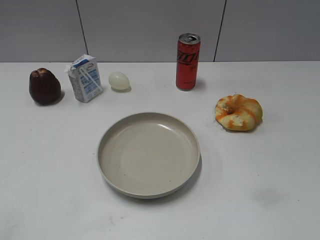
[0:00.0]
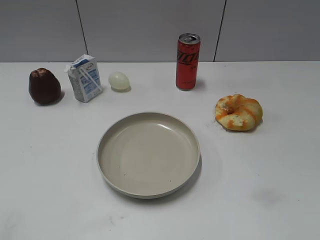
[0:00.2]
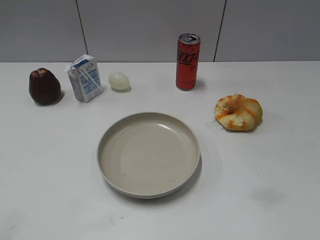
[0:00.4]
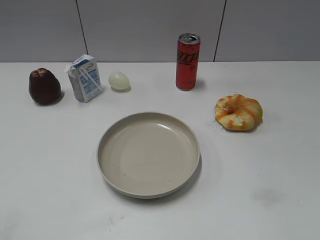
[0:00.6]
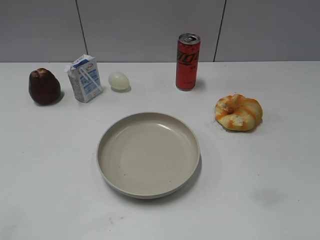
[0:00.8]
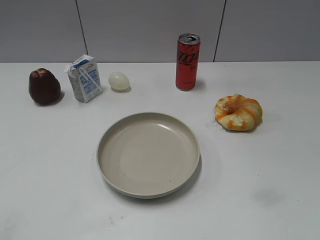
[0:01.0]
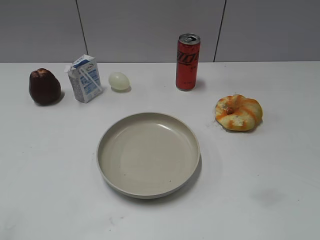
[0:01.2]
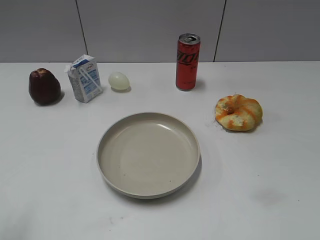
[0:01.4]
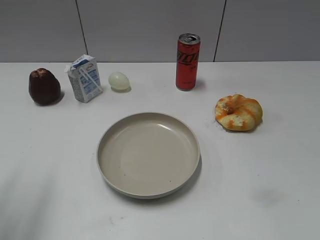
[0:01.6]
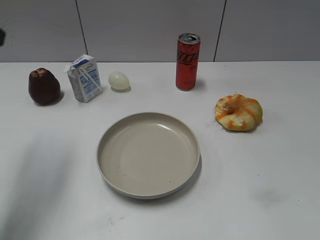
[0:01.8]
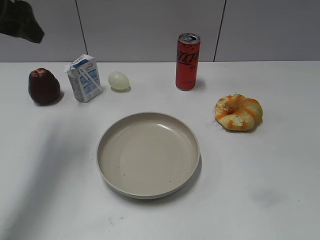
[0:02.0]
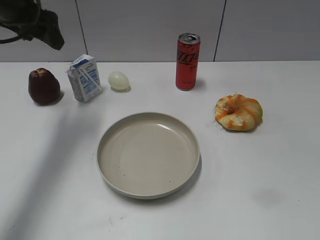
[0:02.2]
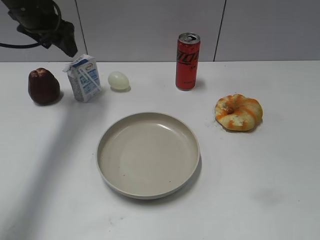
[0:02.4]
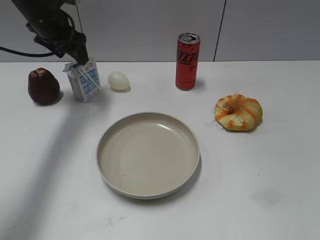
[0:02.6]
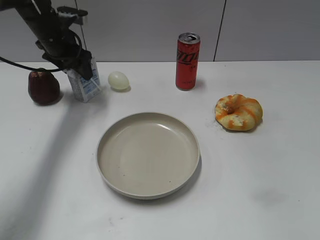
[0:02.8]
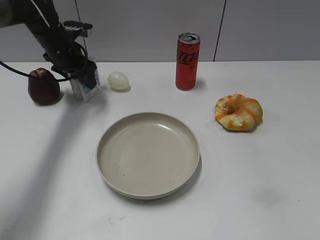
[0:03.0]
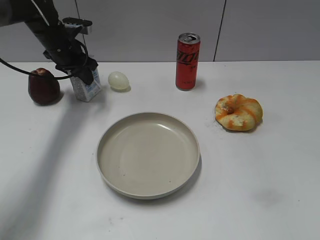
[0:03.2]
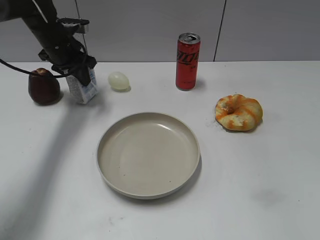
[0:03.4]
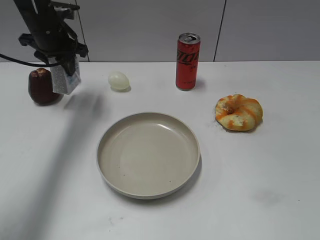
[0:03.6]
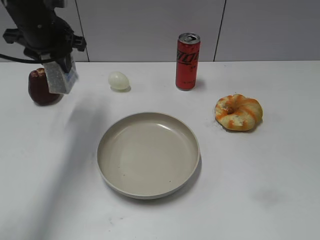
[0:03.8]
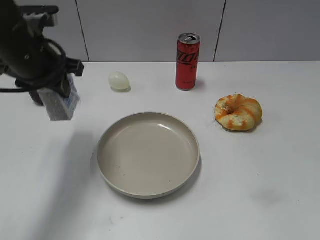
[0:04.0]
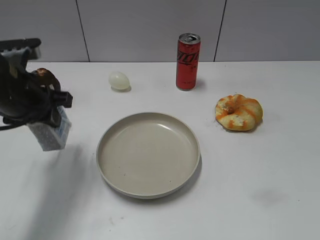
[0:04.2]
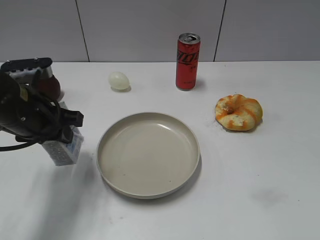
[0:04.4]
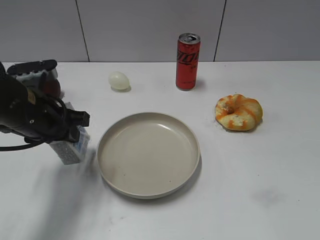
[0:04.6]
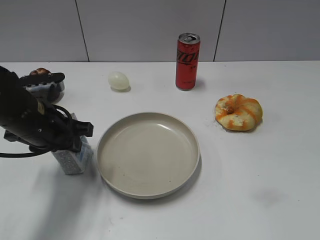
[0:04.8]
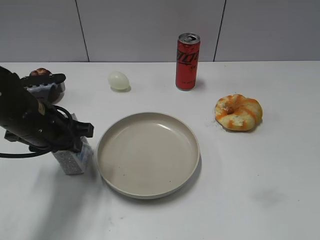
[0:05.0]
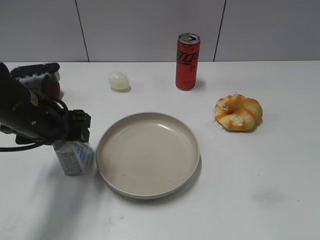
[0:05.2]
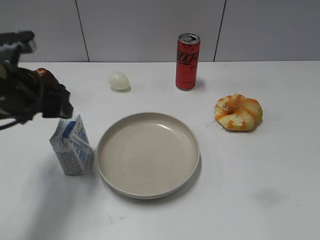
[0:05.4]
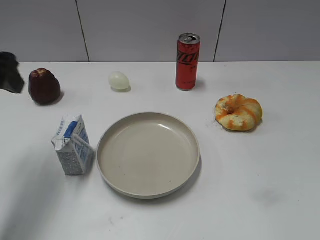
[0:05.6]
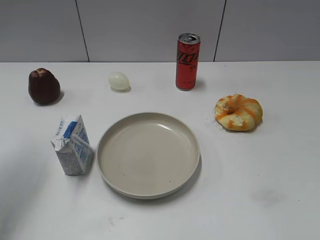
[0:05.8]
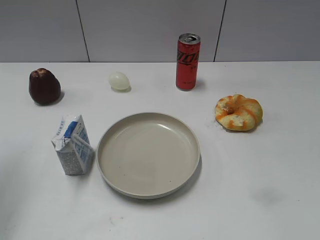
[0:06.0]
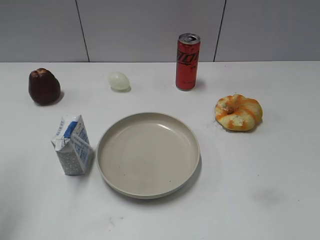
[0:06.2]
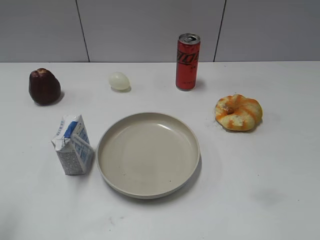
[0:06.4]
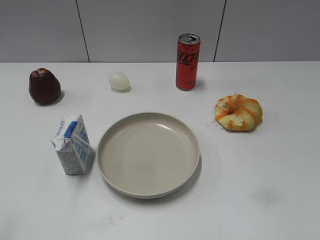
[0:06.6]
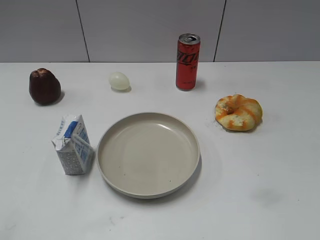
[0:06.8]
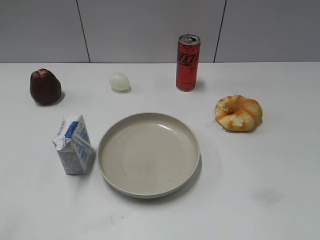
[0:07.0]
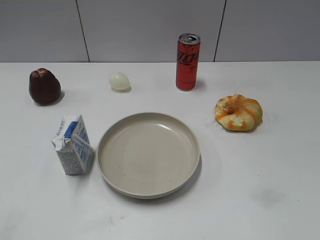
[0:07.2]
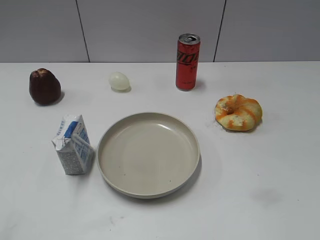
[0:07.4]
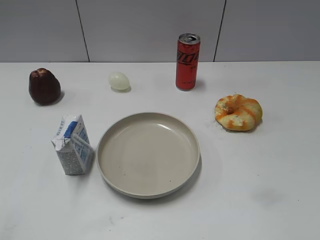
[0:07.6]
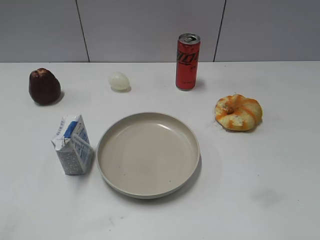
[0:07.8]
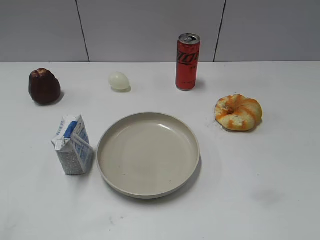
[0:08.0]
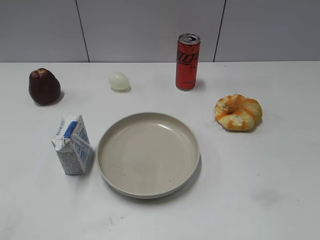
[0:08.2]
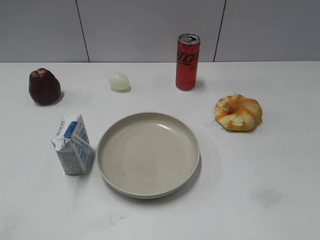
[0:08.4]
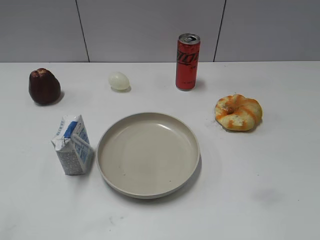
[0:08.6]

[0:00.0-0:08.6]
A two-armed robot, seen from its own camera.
Step, 0:00.8 to 0:03.2: Grasp the milk with left gripper.
Step, 0:03.4 to 0:05.2: Place the milk on the table with left gripper.
0:01.4 to 0:02.8: The left gripper is displaced forward by about 40 cm.
0:02.8 to 0:04.4: The left gripper travels backward by some 25 cm, and closes up.
0:04.4 to 0:05.8: The left gripper shifts approximately 15 cm upward and to the left, and opens.
0:05.8 to 0:07.2: The left gripper heads backward, covering approximately 25 cm.
